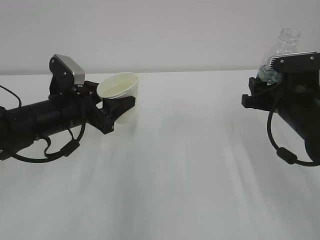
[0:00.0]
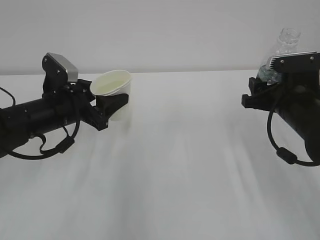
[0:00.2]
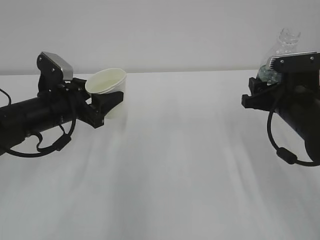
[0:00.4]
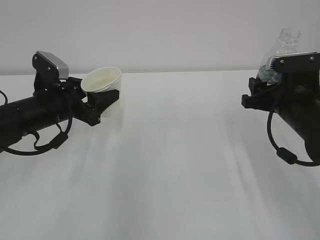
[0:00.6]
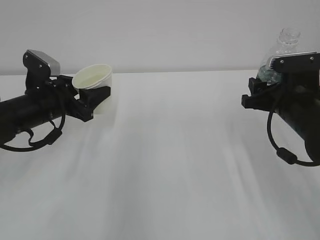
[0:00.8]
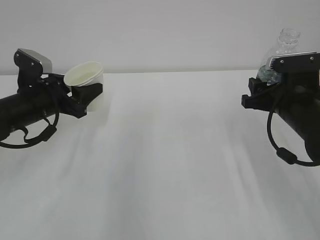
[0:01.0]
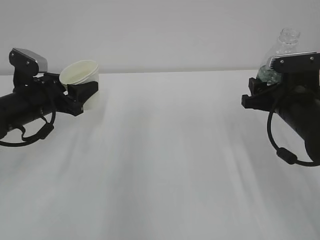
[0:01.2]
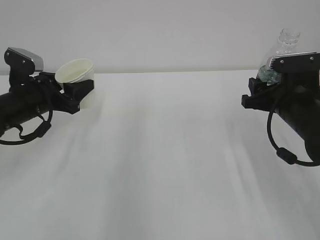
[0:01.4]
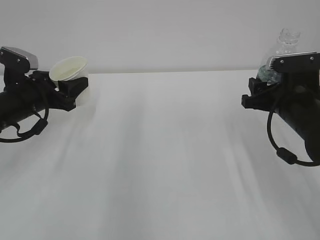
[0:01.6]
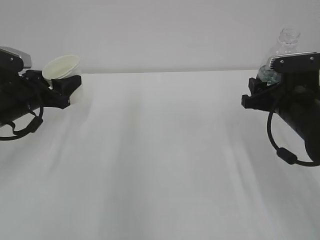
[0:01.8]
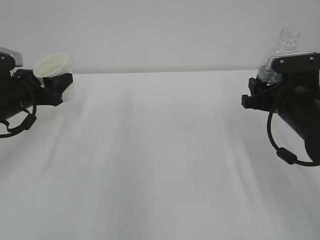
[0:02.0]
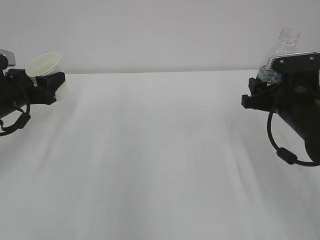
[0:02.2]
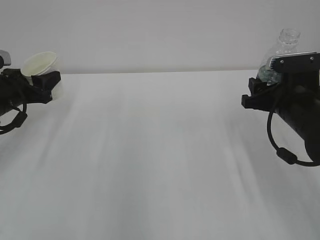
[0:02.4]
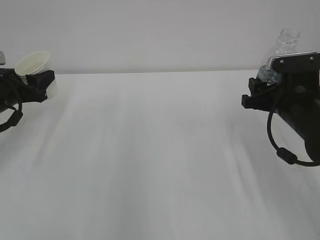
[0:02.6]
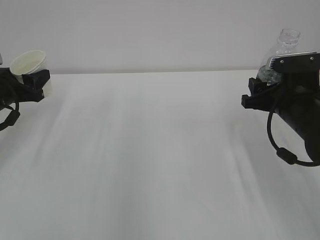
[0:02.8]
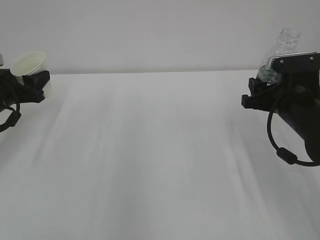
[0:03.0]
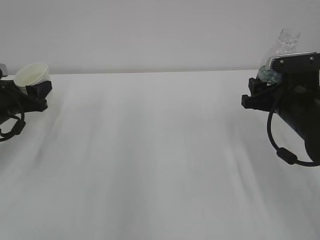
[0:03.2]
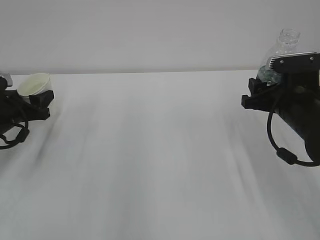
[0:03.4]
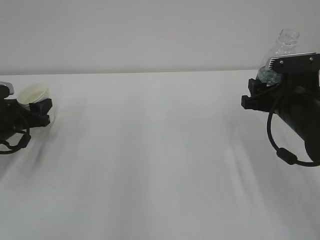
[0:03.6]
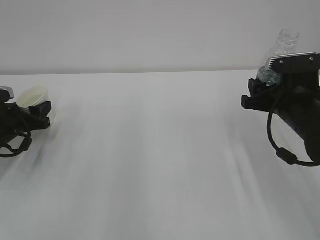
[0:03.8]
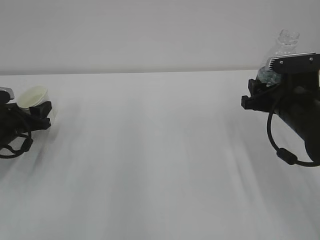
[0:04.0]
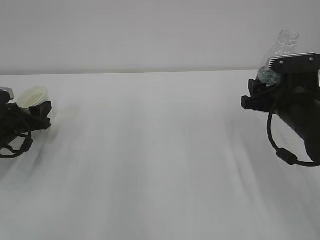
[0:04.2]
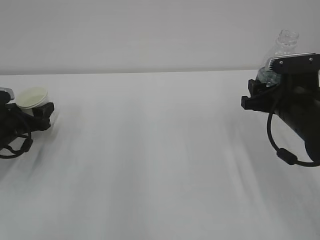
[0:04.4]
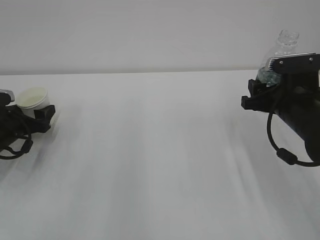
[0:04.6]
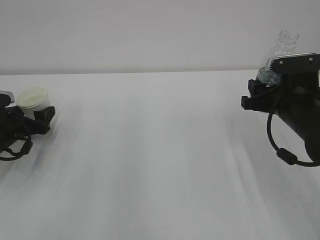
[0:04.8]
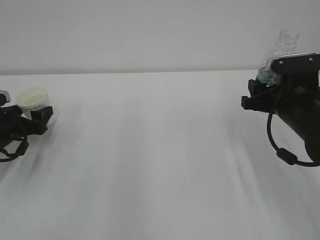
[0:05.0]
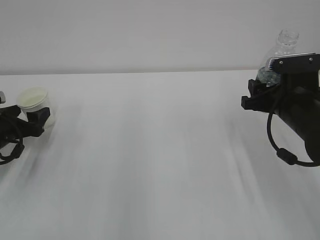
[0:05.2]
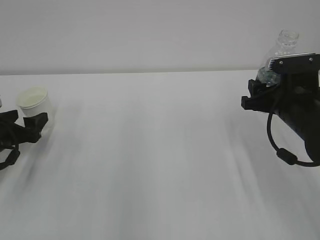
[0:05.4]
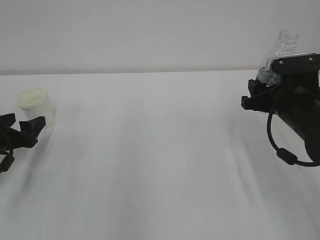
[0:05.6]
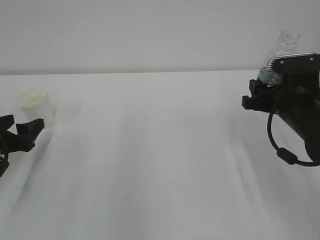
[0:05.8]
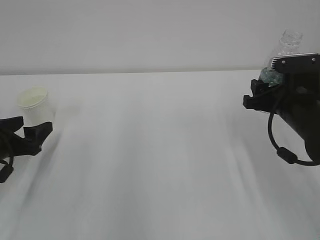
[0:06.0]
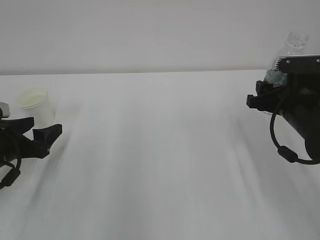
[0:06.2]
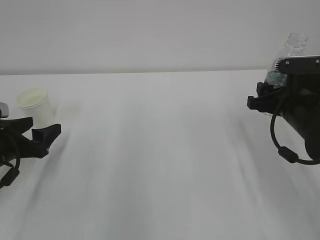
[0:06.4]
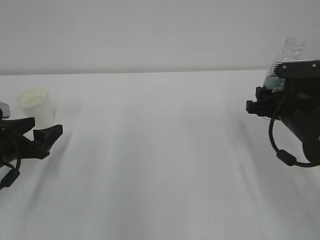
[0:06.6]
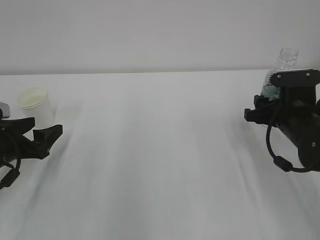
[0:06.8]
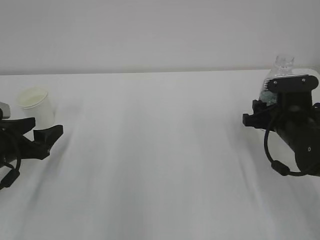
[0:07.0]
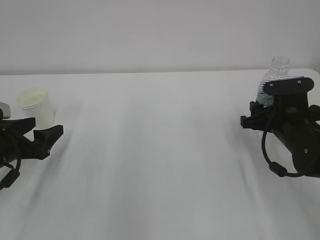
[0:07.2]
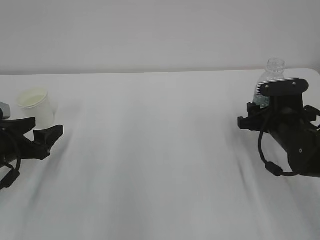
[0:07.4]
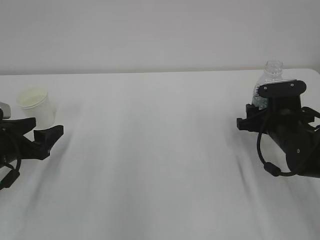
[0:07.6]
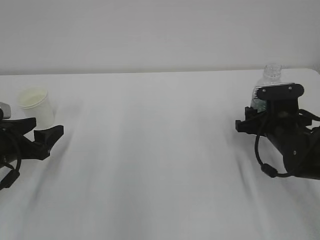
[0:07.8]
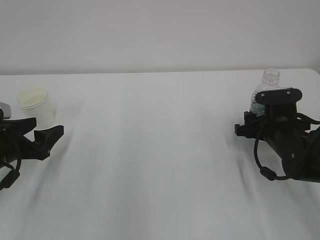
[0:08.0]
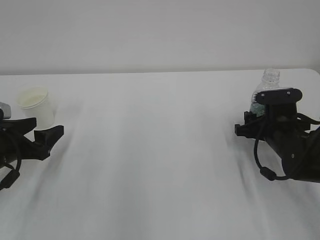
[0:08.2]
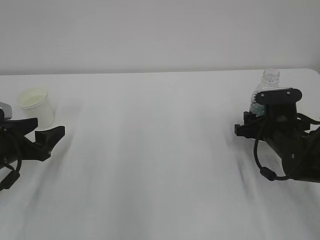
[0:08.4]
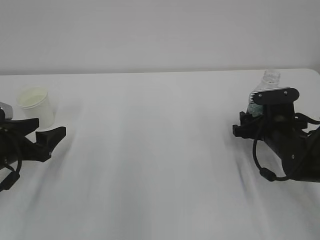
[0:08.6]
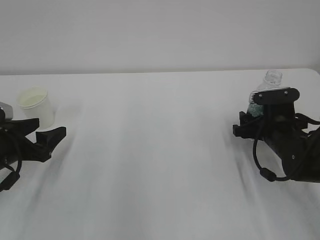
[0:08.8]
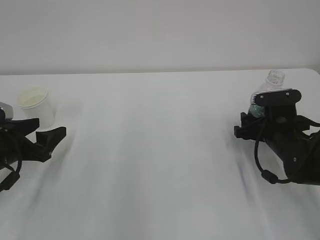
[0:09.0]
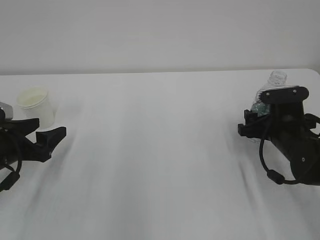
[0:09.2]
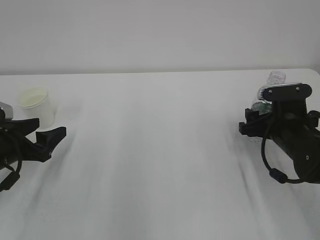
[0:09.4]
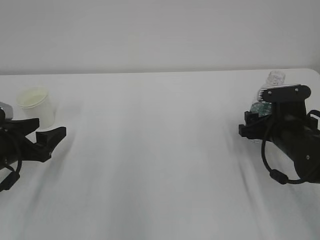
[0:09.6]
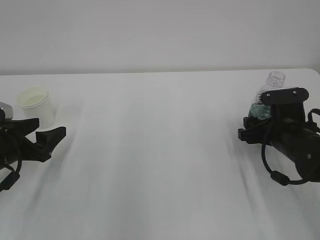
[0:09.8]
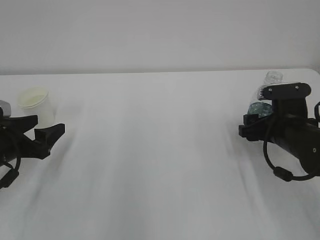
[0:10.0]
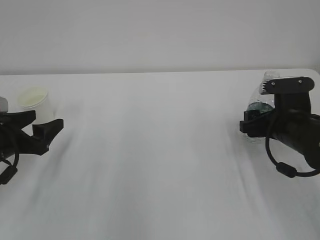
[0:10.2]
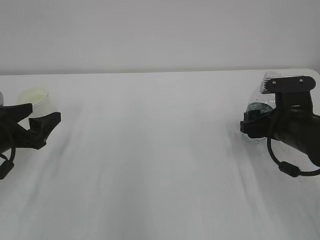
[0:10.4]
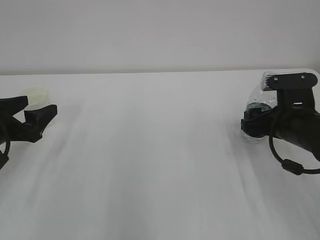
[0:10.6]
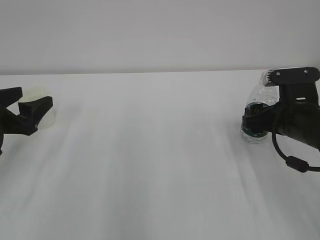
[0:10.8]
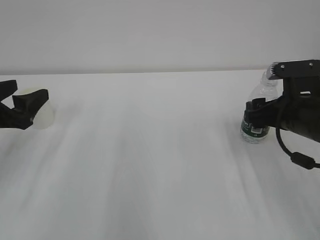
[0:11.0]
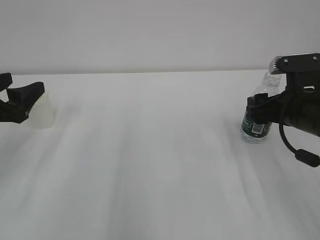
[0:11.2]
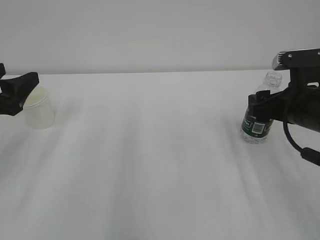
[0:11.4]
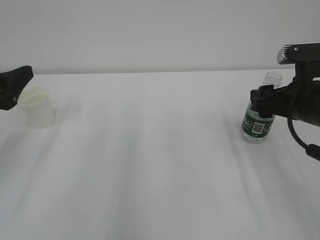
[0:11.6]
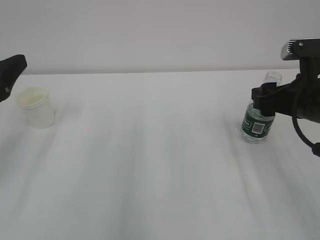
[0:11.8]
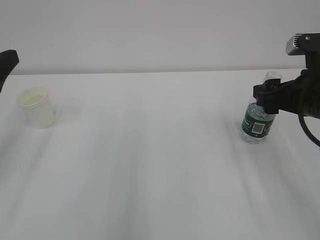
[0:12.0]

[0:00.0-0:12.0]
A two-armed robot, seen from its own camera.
0:00.0 to 0:01.6: The left gripper goes about 10 cm to the left.
0:01.6 to 0:03.0: The left gripper is displaced to the left by about 5 cm.
0:03.0 to 0:04.4: The left gripper moves downward, roughly 10 cm, and opens up.
0:04.4 to 0:06.0: The left gripper moves backward, some 10 cm, and opens.
0:06.0 to 0:07.6: The right gripper shifts about 5 cm downward.
0:07.6 to 0:09.0: The right gripper opens up.
0:09.0 to 0:10.4: The right gripper ends up approximately 5 cm from where it was.
0:10.4 to 0:12.0: The two grippers go approximately 10 cm upward.

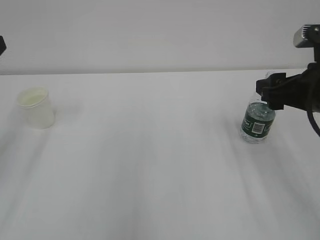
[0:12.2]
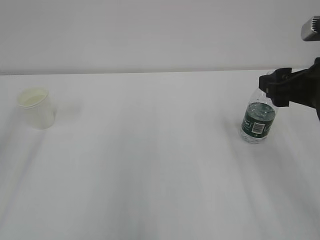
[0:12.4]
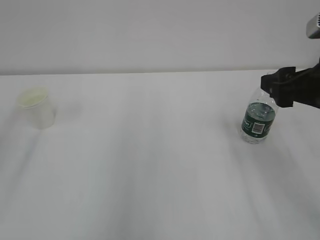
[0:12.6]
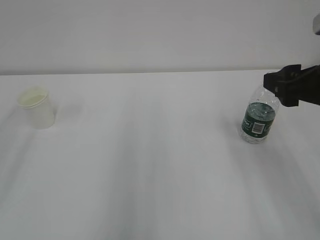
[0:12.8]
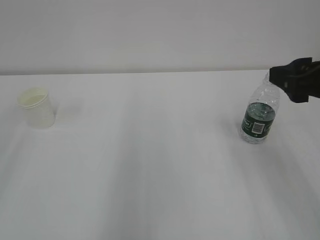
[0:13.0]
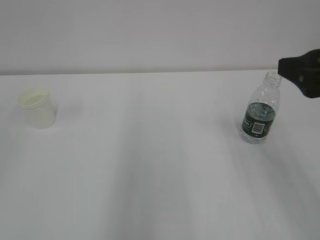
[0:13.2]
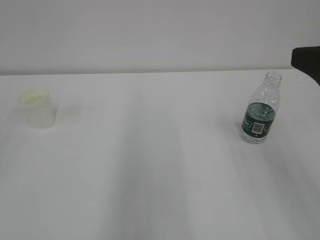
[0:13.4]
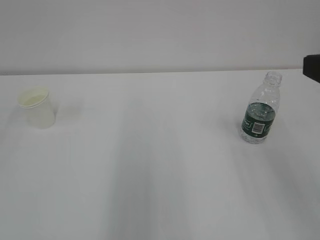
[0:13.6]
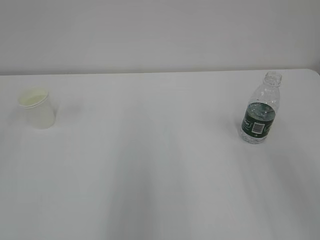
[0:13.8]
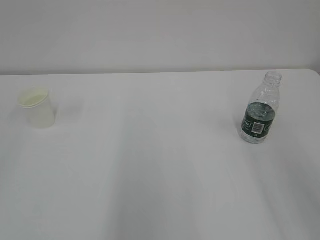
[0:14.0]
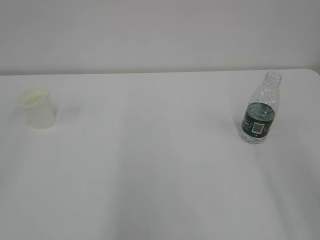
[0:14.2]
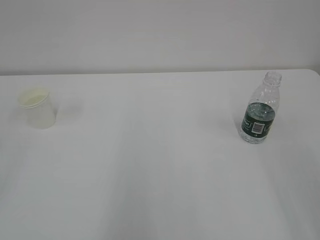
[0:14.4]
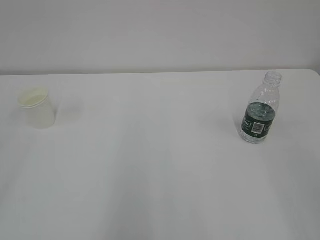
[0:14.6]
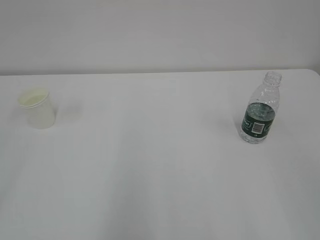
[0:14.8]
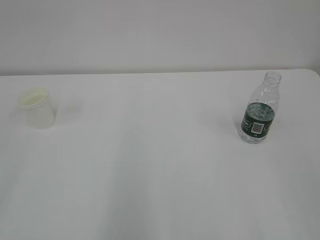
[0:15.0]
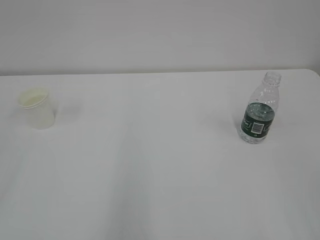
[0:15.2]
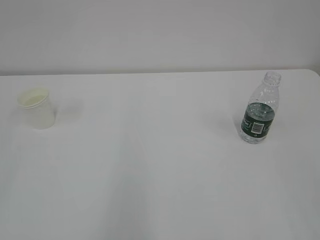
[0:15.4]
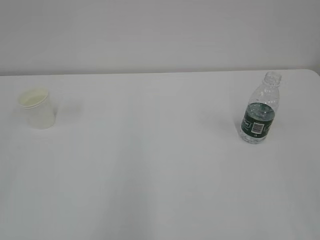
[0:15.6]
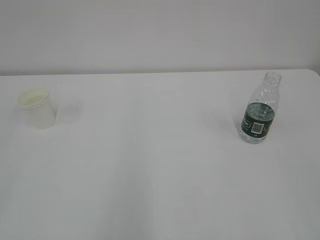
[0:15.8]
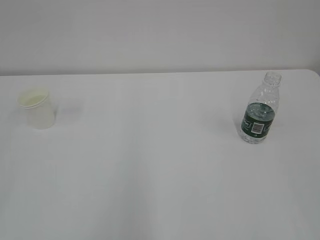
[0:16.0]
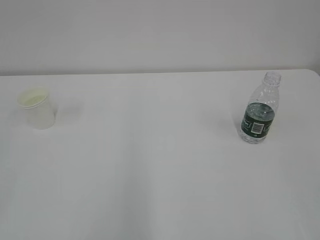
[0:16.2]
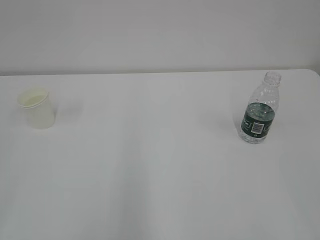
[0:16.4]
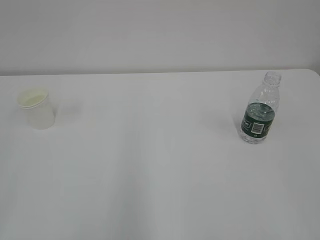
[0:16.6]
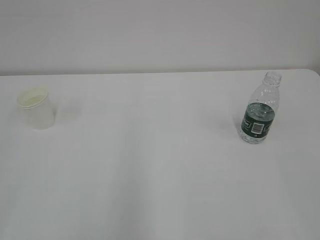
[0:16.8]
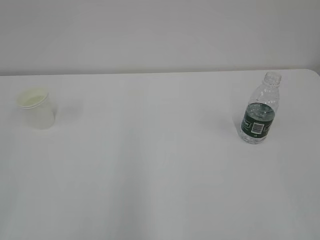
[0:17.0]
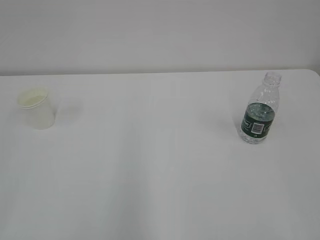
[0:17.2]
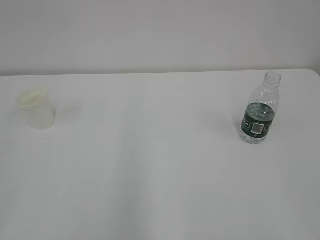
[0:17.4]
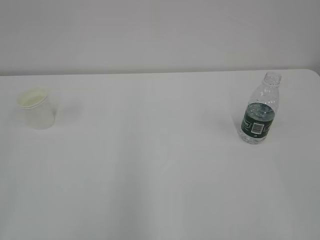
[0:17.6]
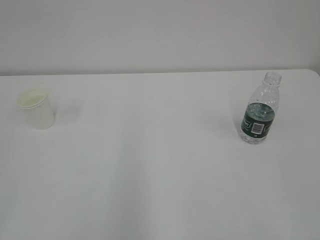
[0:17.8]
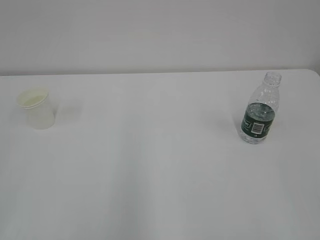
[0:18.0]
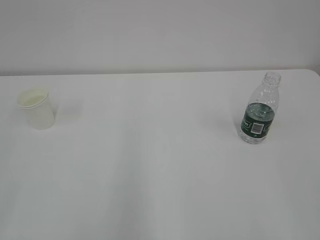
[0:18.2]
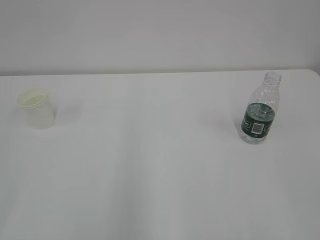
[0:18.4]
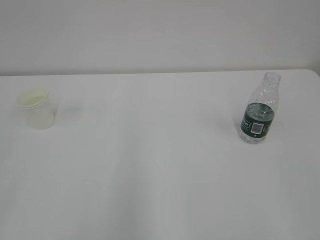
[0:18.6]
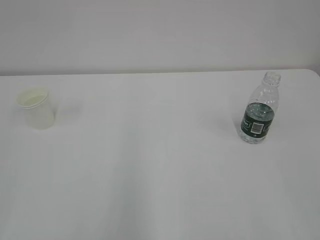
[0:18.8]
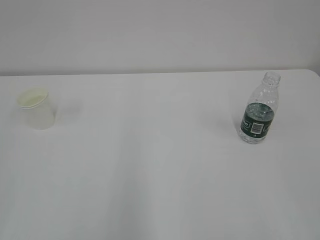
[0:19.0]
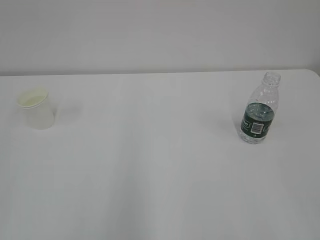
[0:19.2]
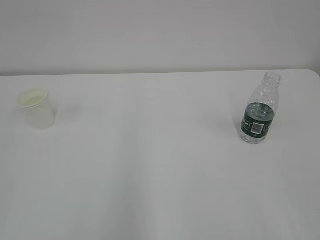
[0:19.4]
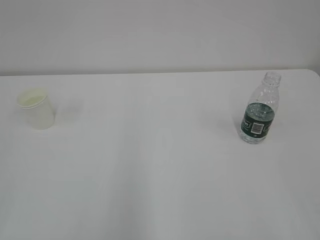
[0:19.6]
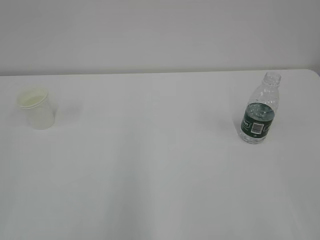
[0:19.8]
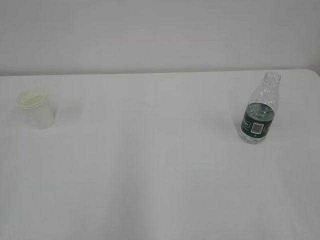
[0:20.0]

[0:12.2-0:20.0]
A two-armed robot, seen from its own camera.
0:12.2 to 0:13.8: The right gripper shifts some 15 cm backward and upward.
0:16.8 to 0:18.4: The two grippers keep their place.
